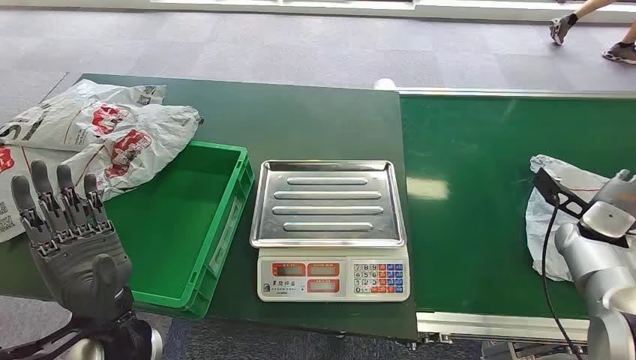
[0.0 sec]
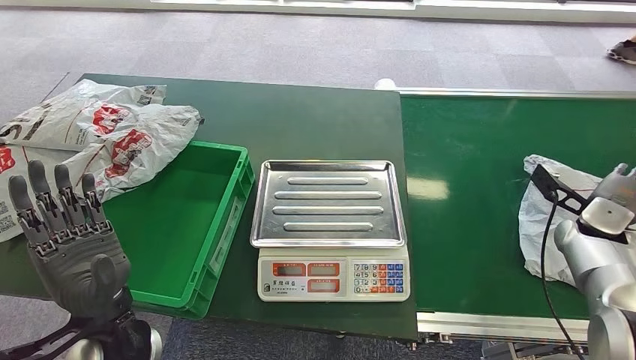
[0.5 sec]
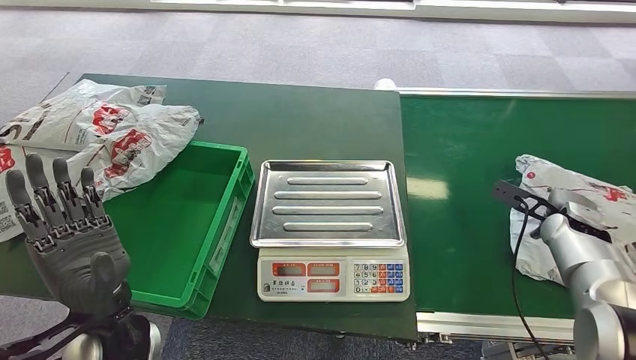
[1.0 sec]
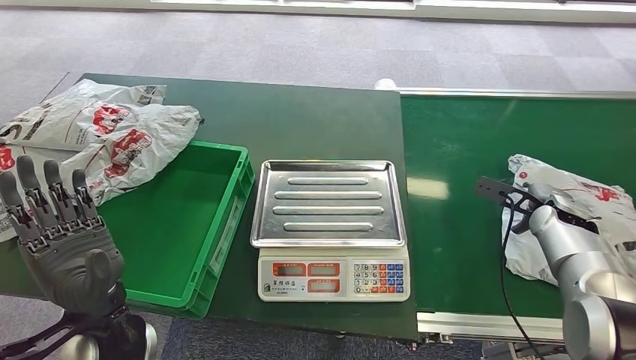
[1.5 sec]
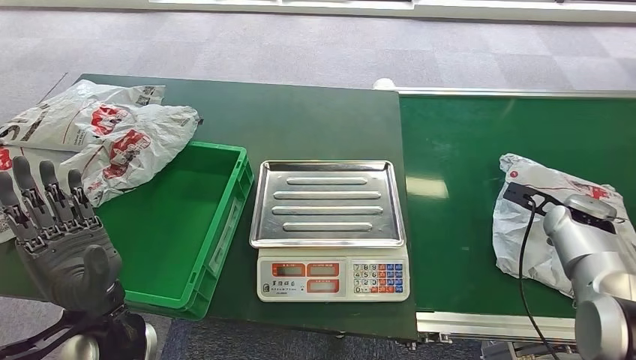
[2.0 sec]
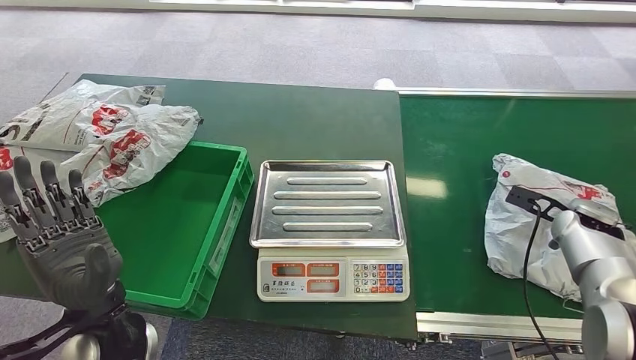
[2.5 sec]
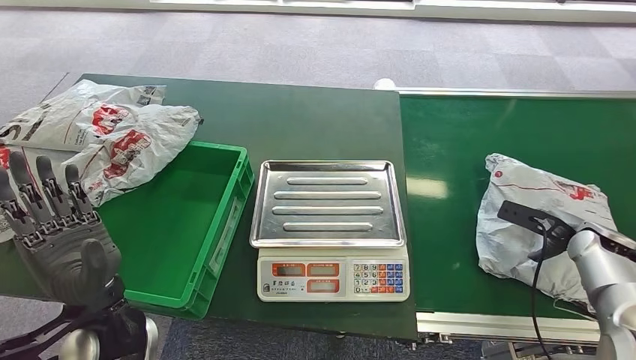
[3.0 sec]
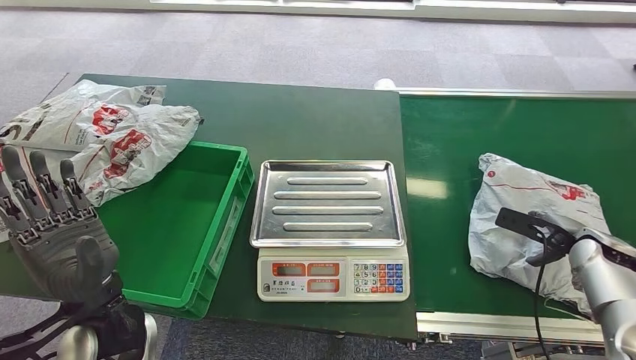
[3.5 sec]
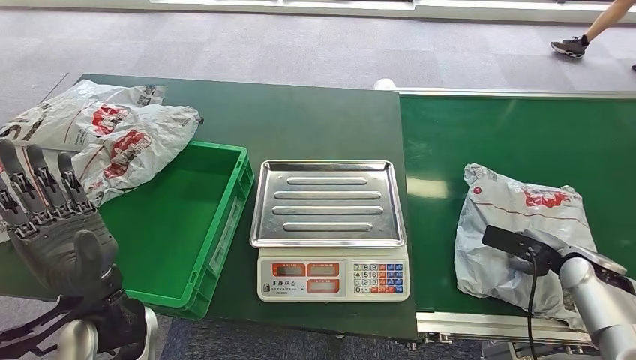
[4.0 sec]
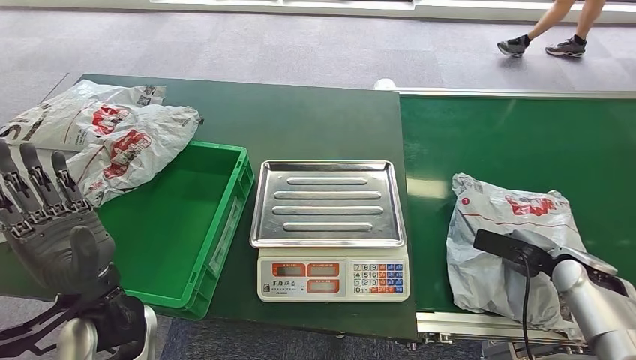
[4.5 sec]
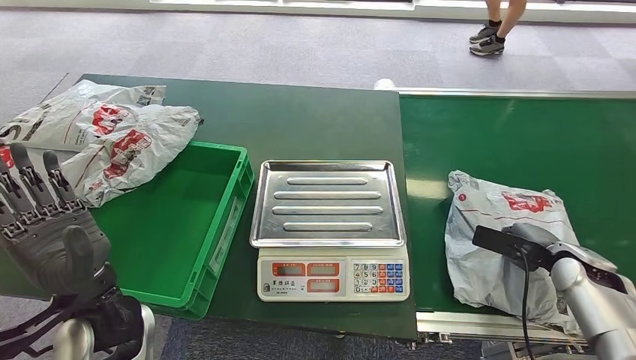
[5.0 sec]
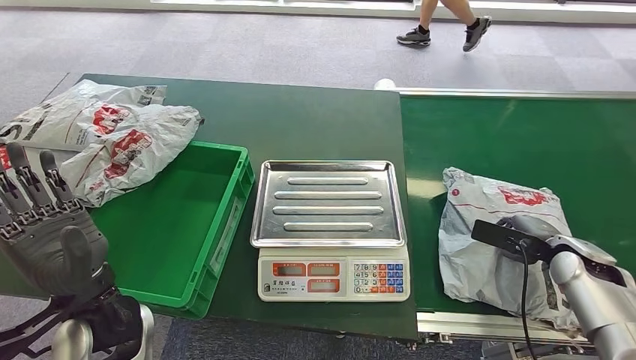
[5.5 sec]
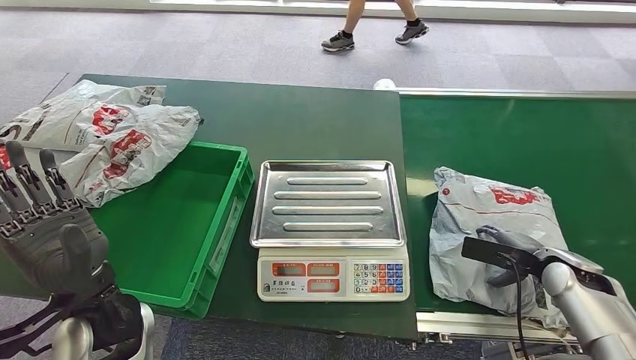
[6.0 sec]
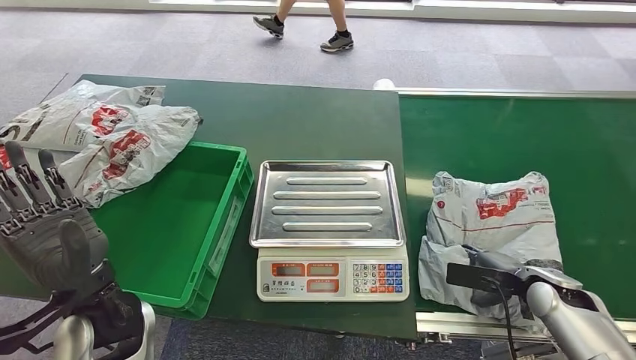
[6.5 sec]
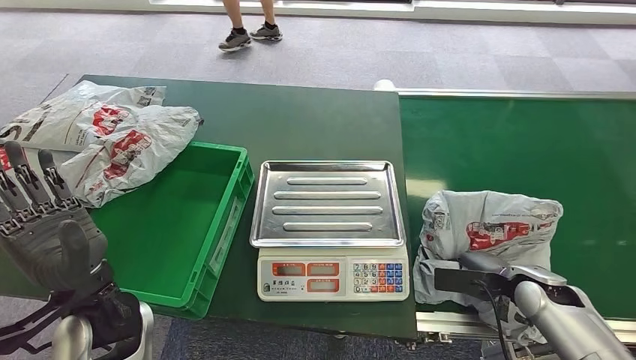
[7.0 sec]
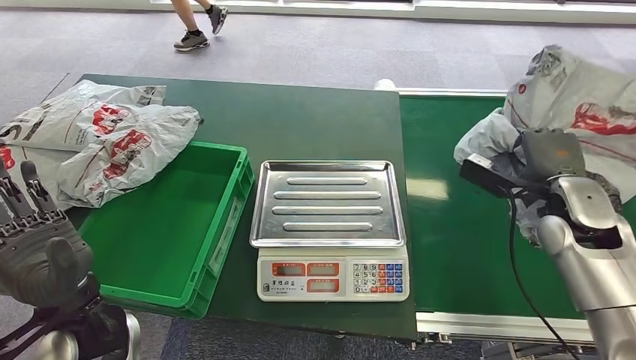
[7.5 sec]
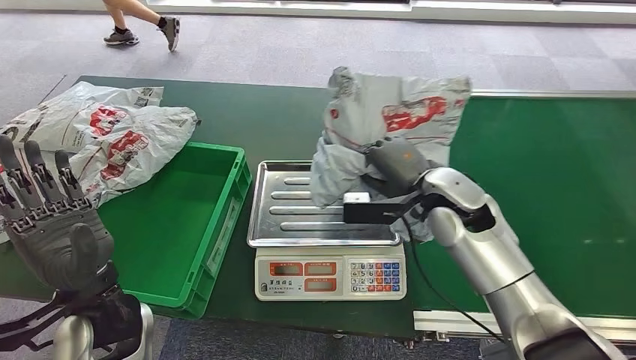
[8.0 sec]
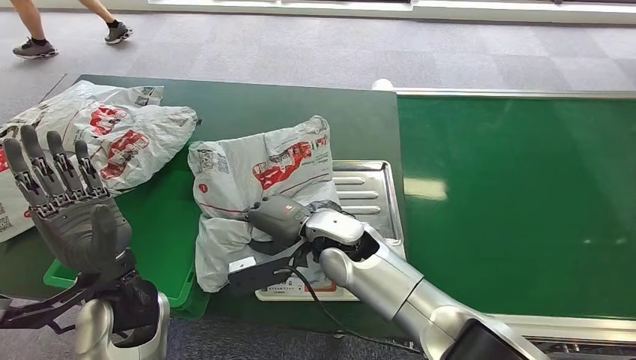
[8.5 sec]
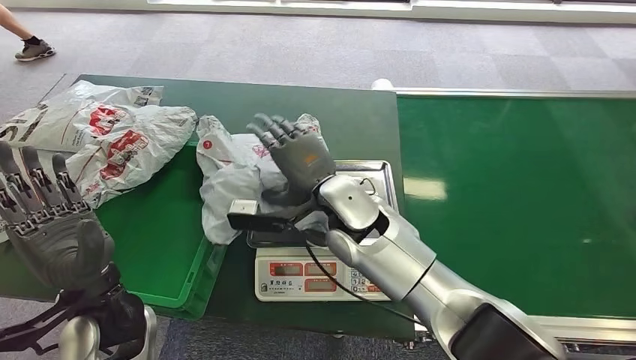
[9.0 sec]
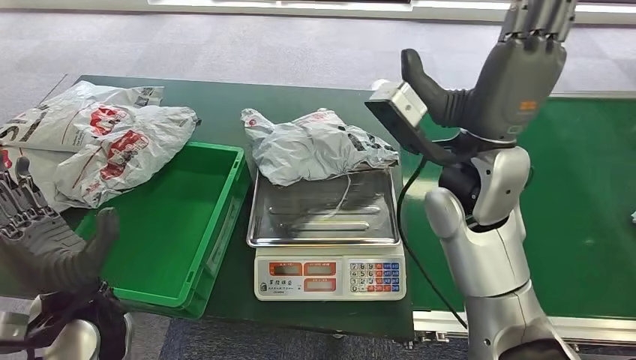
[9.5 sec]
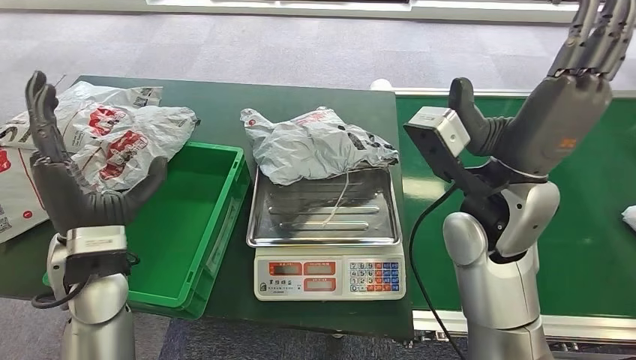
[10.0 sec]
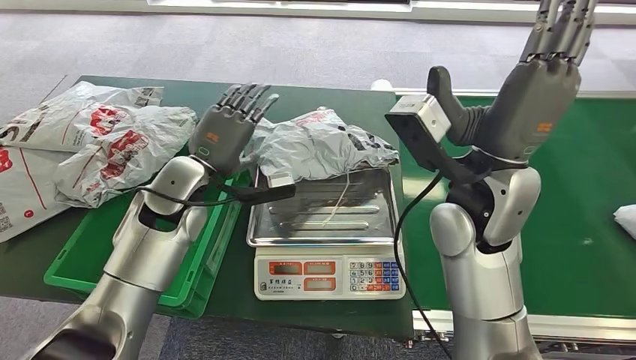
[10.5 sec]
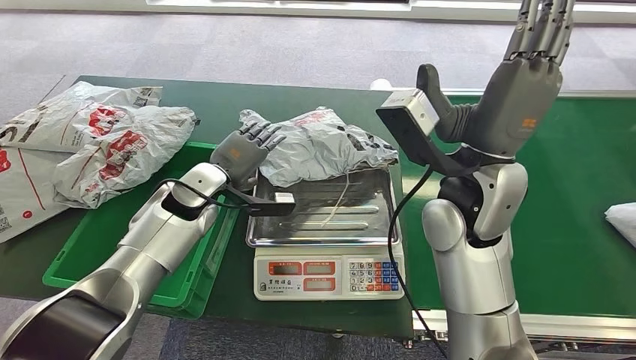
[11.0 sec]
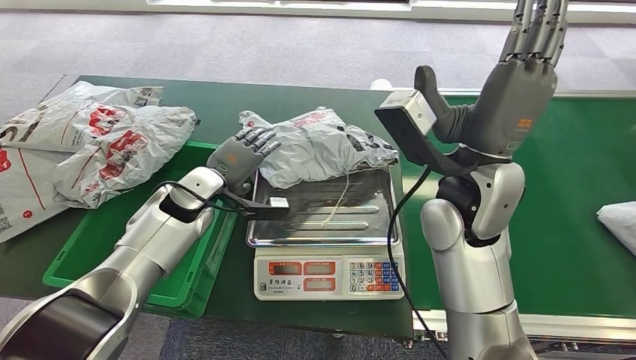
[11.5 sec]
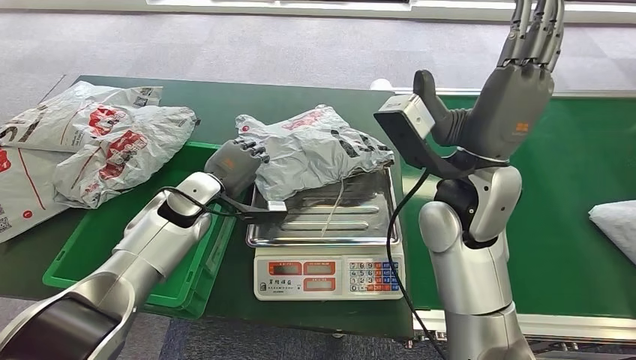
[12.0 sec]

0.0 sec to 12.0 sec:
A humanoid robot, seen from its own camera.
Step, 0.0 sec to 7.5 sec: Pick up the package from the conveyor belt.
Step, 8.0 sec to 9.5 sec: Place the package onto the inbound machine.
2.0 sec to 4.0 sec: The right hand shifts roughly 10 cm backward.
4.0 sec to 6.0 sec: The hands move only a little.

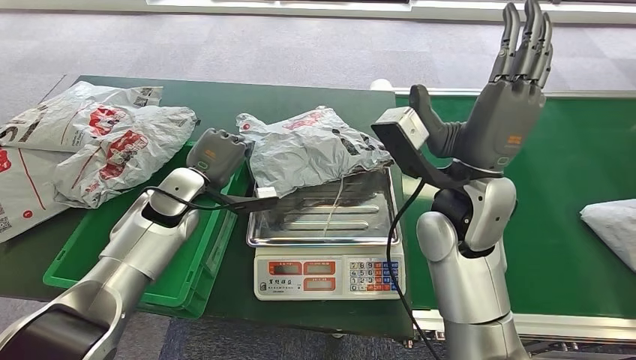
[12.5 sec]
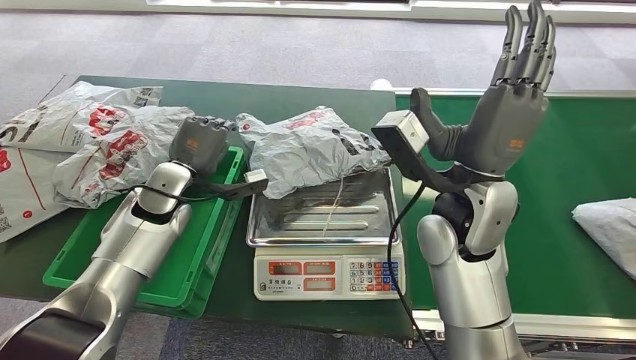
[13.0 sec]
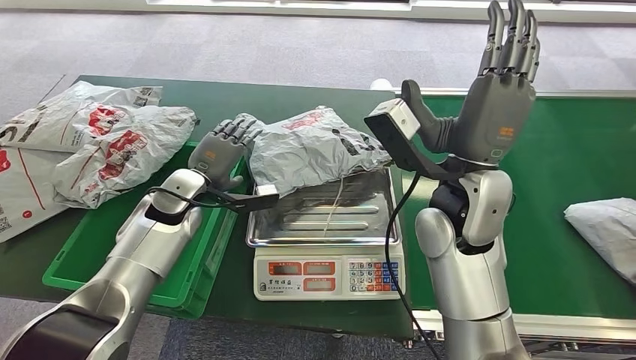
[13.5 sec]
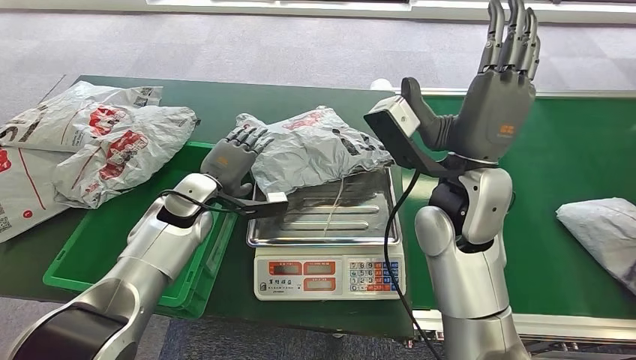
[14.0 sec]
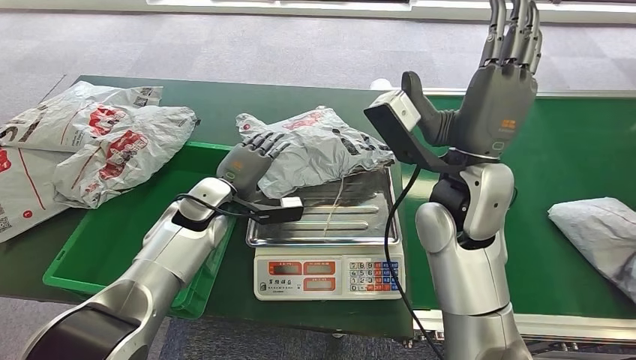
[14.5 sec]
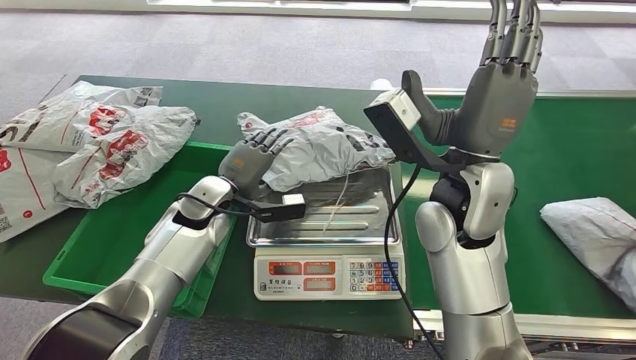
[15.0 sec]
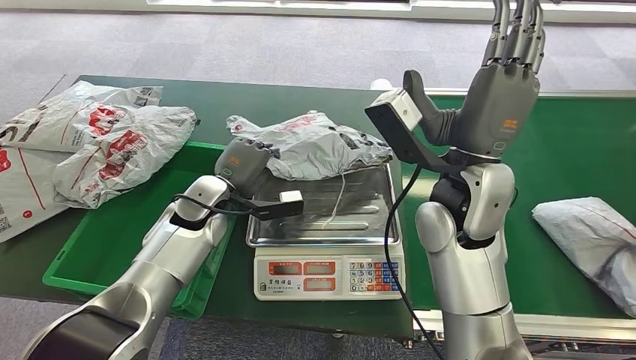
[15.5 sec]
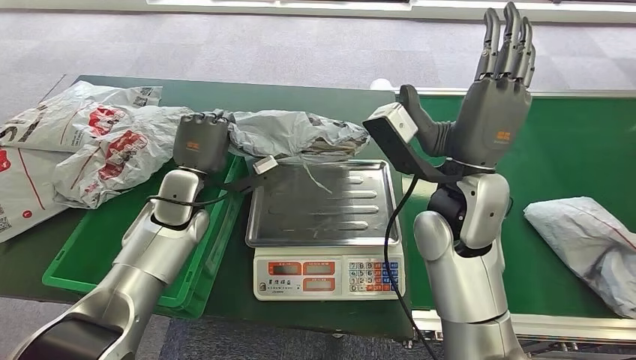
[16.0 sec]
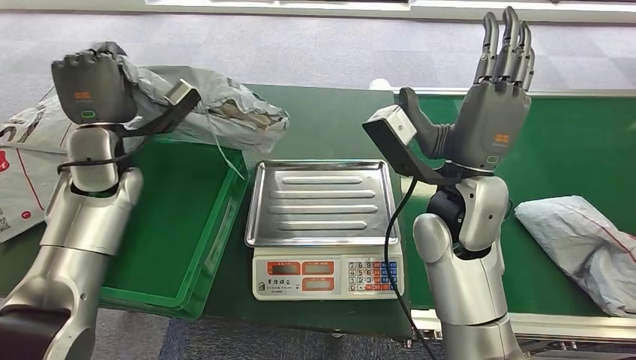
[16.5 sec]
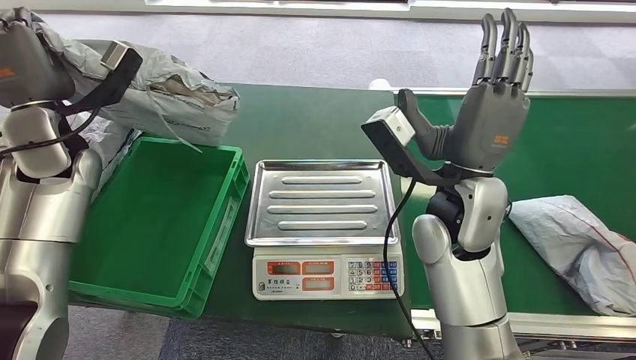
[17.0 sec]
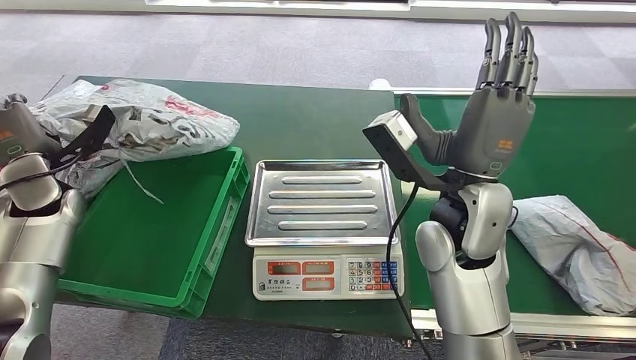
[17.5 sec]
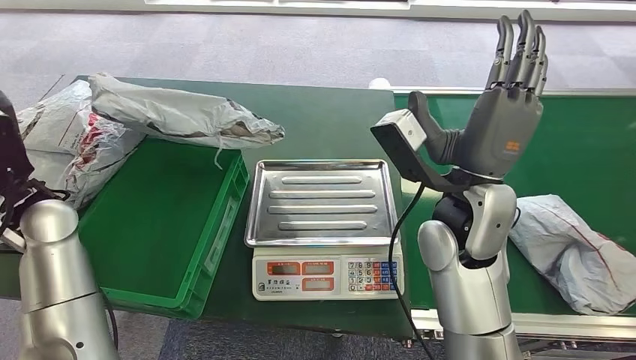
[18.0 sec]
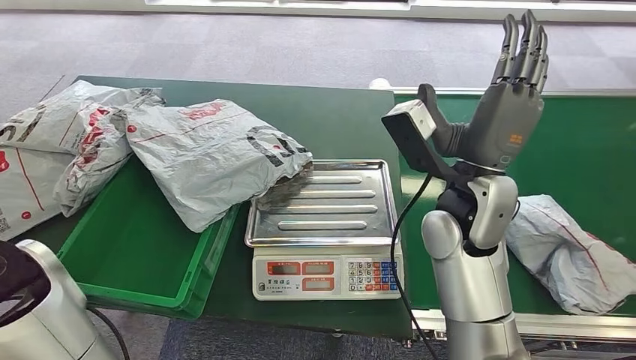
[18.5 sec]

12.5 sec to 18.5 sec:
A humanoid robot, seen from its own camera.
Step, 15.5 sec to 16.5 sec: Pick up the package from the inbound machine.
Step, 17.0 sec to 18.0 sec: Place the package into the parcel locker.
12.5 sec to 14.5 sec: The left hand changes place by some 5 cm.
